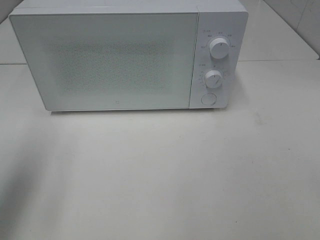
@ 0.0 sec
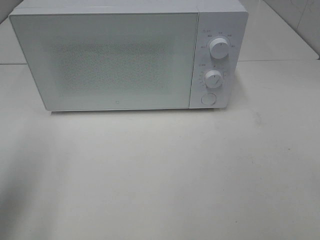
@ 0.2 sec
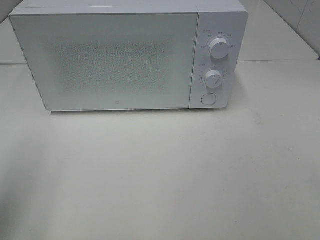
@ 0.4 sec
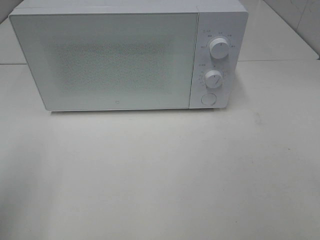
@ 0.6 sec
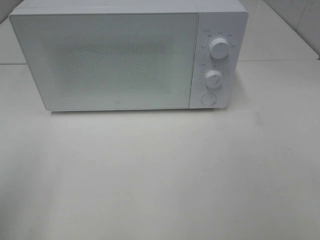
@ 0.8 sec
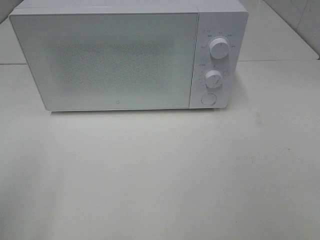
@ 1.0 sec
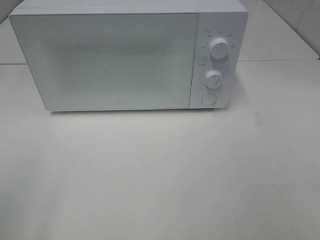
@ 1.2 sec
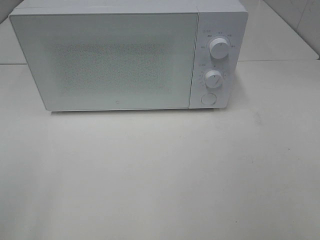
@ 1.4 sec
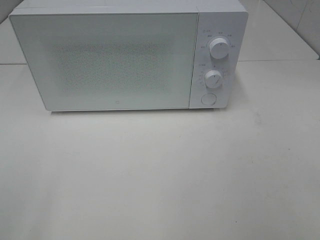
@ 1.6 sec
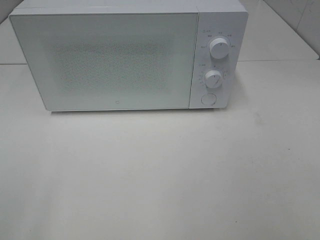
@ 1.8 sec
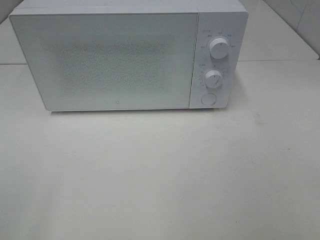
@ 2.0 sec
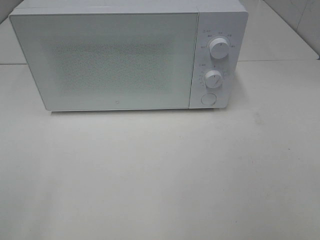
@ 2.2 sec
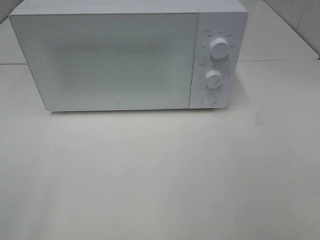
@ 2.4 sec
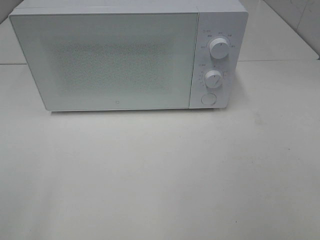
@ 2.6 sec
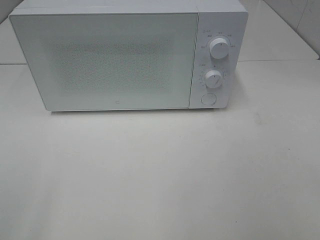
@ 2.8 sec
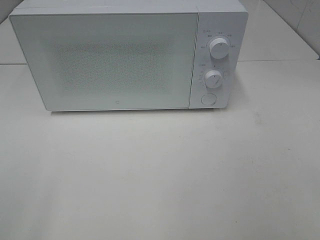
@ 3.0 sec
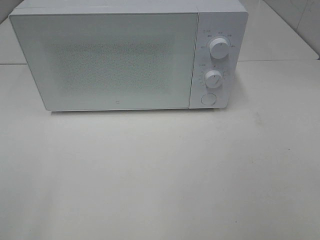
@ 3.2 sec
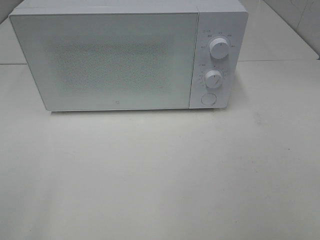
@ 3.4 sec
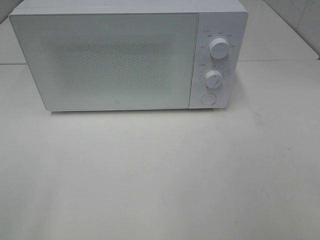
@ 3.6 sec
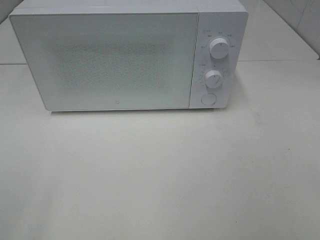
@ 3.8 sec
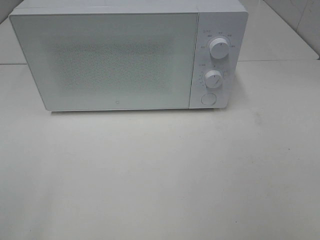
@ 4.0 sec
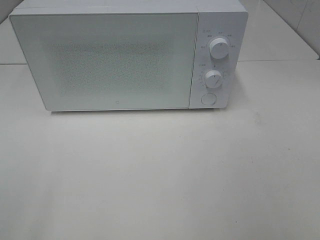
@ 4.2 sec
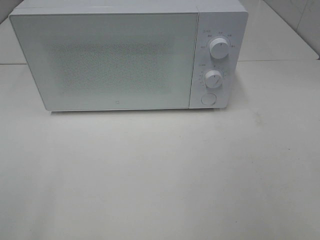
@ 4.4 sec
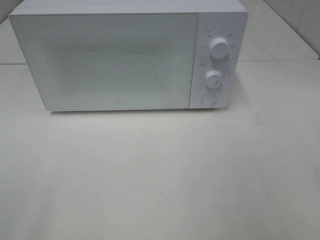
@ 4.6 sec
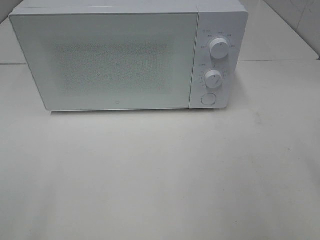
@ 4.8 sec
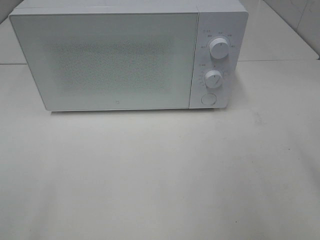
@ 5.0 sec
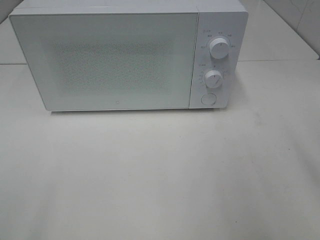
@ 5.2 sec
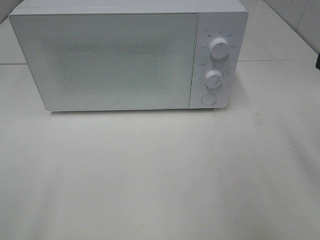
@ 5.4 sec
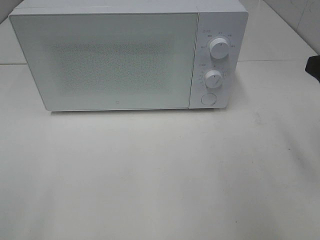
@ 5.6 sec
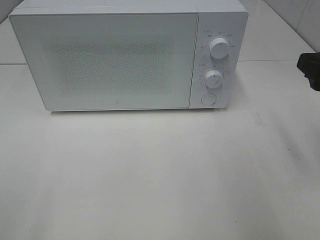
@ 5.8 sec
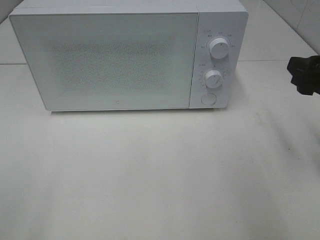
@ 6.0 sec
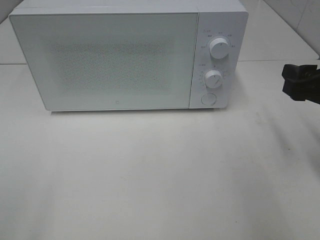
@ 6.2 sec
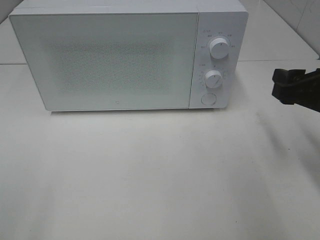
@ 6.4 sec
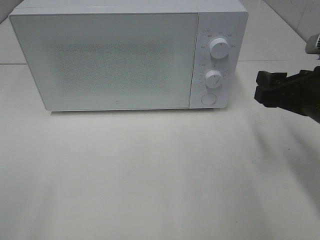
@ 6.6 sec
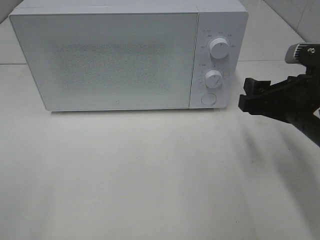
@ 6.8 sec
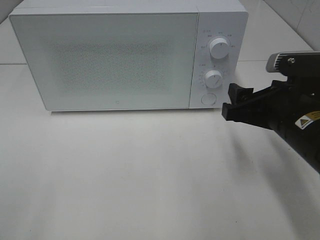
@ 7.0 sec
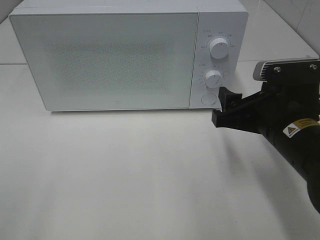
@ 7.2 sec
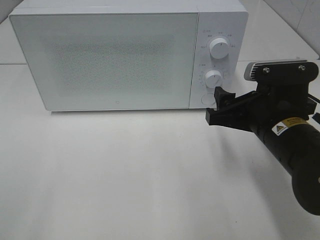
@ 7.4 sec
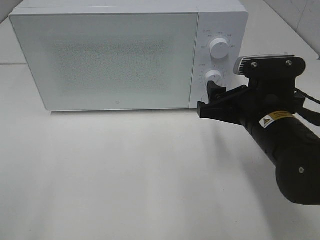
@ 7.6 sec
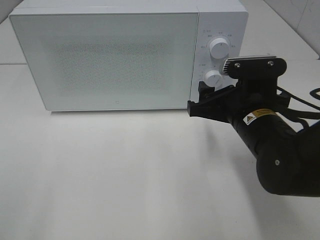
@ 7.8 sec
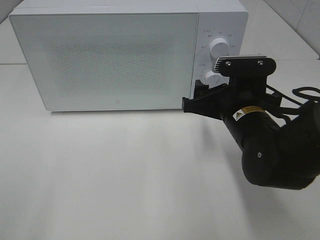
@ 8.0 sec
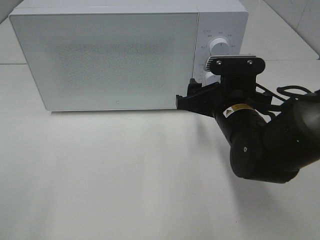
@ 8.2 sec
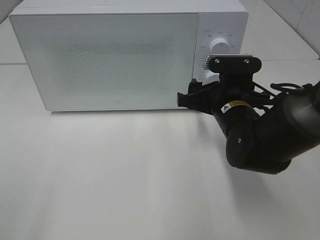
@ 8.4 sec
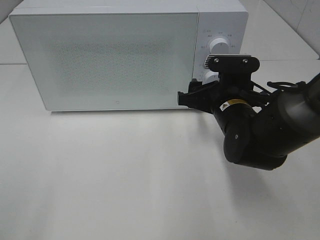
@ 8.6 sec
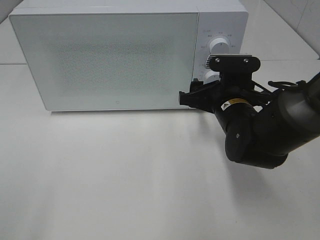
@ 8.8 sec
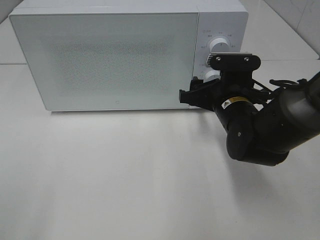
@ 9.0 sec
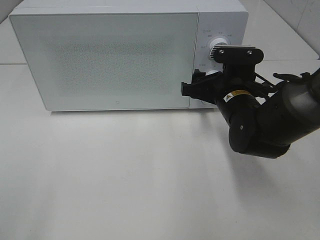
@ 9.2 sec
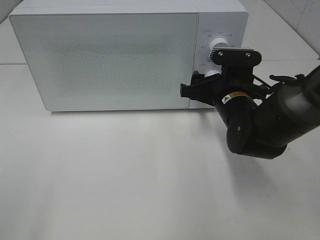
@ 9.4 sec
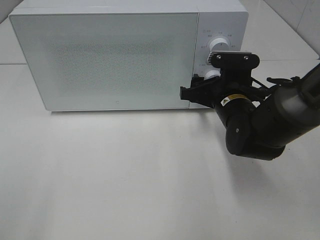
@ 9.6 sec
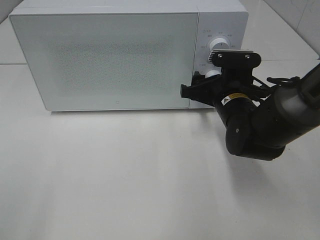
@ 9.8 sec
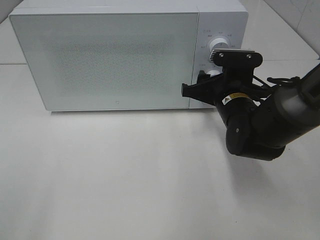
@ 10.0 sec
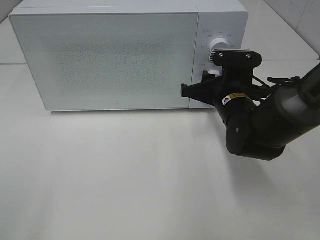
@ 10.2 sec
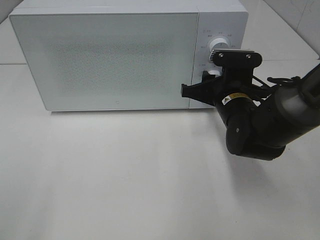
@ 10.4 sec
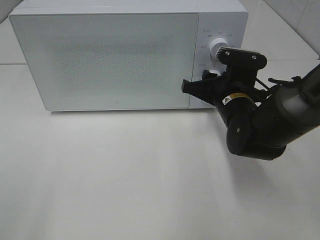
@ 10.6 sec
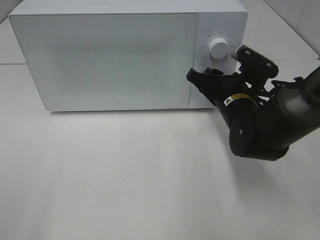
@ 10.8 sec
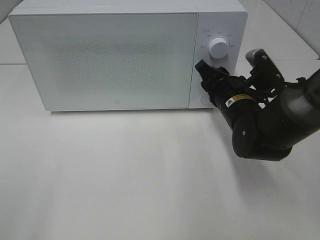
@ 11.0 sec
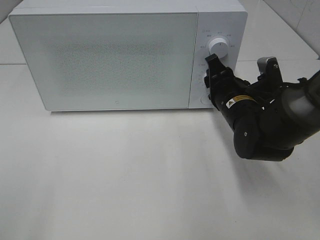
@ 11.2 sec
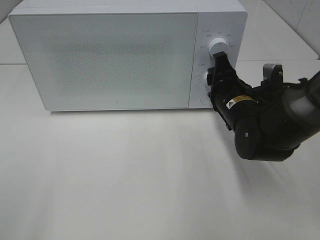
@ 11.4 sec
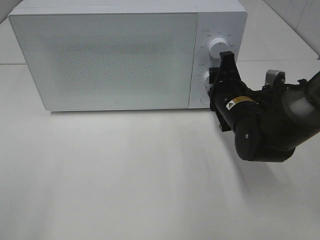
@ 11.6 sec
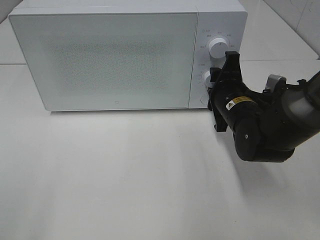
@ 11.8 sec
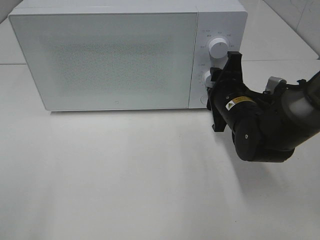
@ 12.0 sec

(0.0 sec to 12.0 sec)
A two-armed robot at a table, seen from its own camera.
Task of the whole recording: Heat the burger.
0.0 sec - 1.6 sec: The left gripper shifts about 20 cm backward.
1.6 sec - 3.0 sec: The two grippers keep their place.
4.4 sec - 6.0 sec: The right gripper shifts about 20 cm forward and downward.
6.0 sec - 7.6 sec: The right gripper goes roughly 15 cm to the left and downward.
7.6 sec - 9.0 sec: The right gripper heads forward, covering some 5 cm.
9.0 sec - 10.4 sec: The right gripper closes.

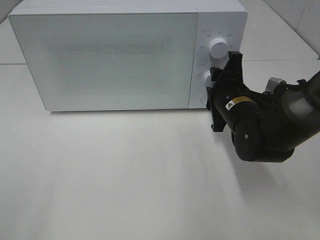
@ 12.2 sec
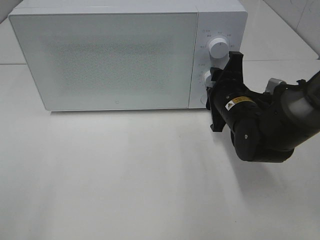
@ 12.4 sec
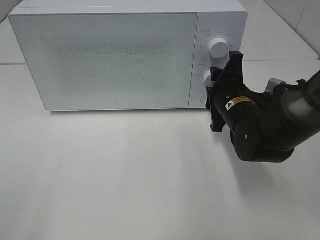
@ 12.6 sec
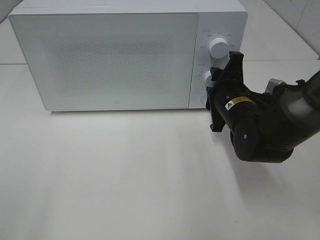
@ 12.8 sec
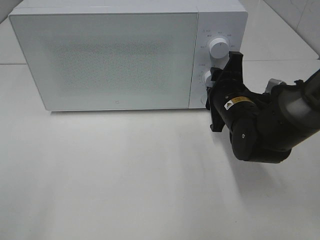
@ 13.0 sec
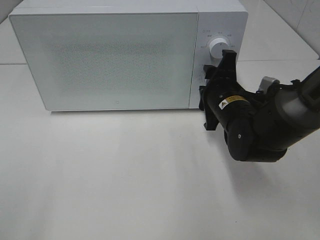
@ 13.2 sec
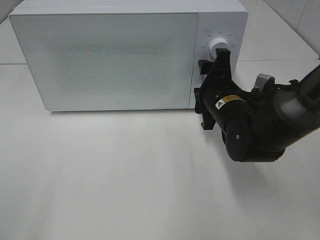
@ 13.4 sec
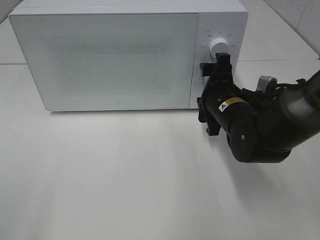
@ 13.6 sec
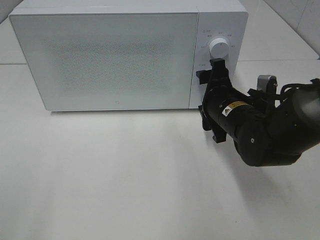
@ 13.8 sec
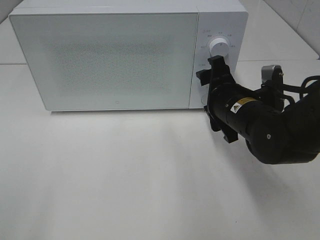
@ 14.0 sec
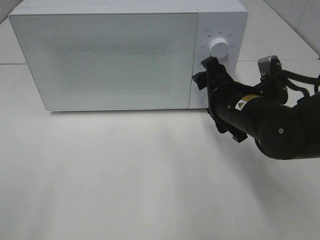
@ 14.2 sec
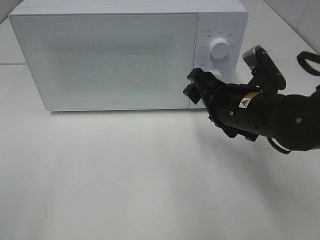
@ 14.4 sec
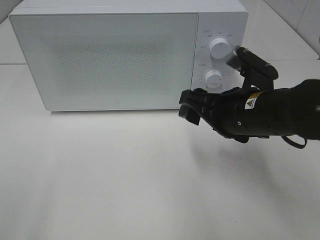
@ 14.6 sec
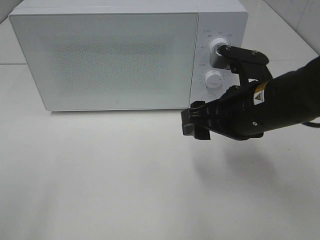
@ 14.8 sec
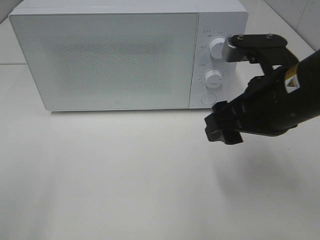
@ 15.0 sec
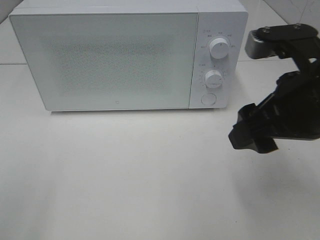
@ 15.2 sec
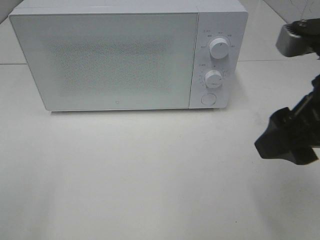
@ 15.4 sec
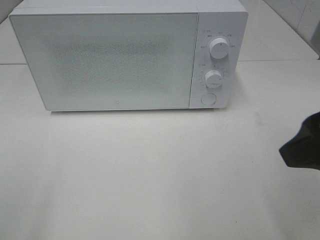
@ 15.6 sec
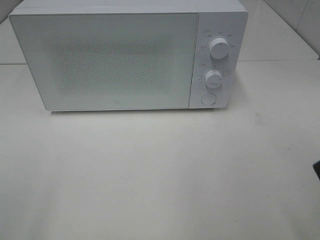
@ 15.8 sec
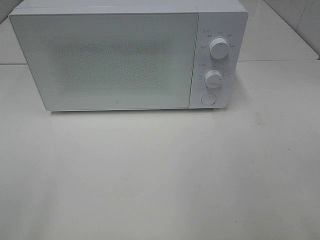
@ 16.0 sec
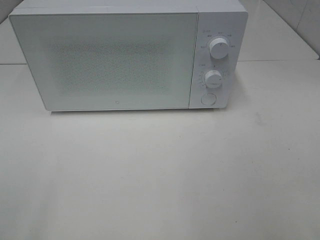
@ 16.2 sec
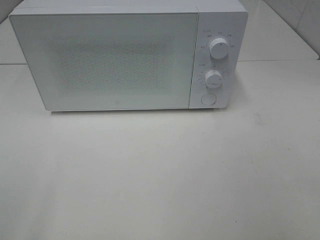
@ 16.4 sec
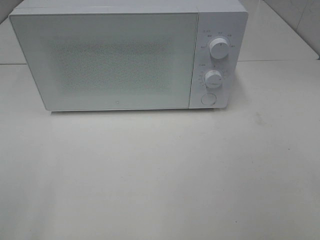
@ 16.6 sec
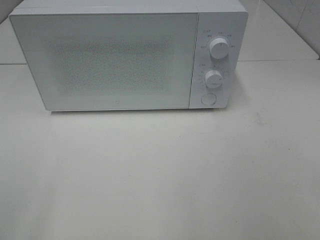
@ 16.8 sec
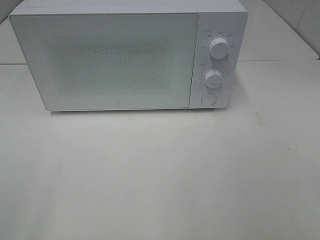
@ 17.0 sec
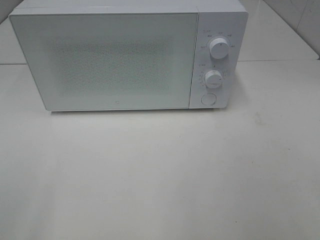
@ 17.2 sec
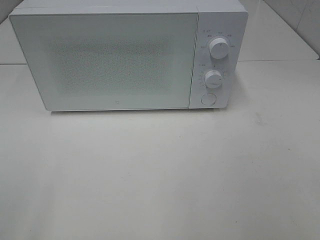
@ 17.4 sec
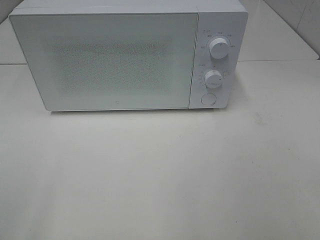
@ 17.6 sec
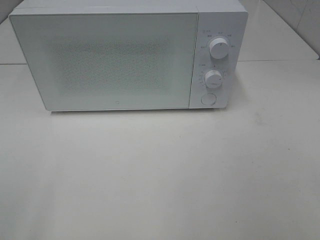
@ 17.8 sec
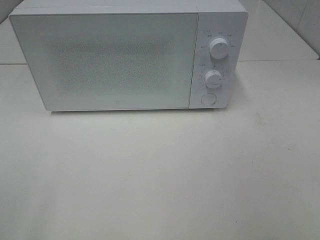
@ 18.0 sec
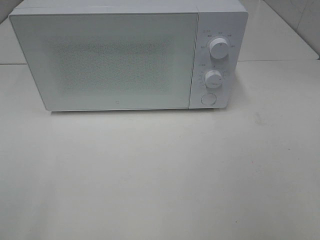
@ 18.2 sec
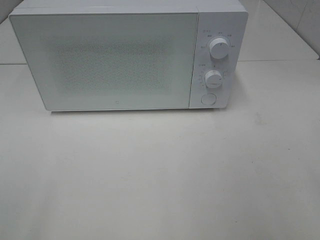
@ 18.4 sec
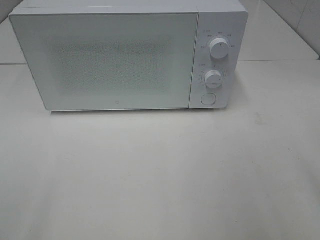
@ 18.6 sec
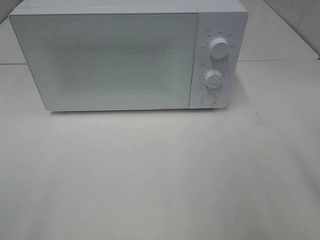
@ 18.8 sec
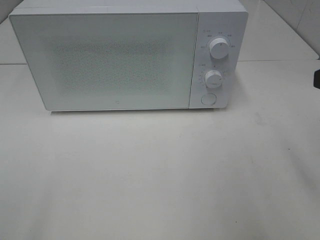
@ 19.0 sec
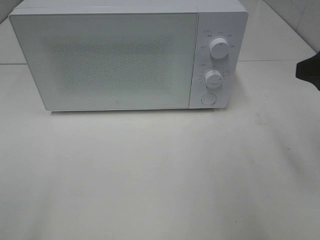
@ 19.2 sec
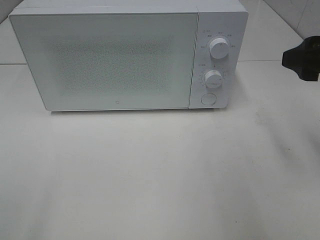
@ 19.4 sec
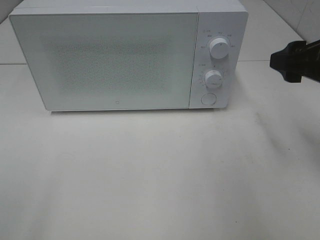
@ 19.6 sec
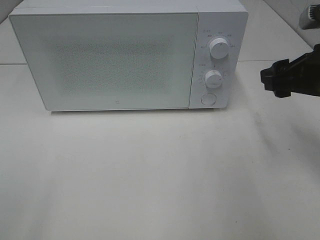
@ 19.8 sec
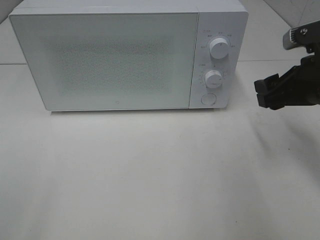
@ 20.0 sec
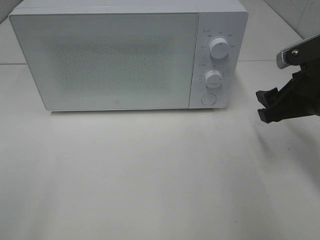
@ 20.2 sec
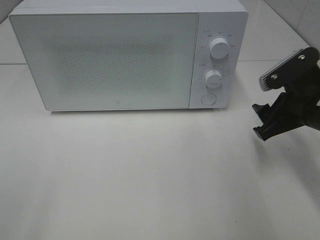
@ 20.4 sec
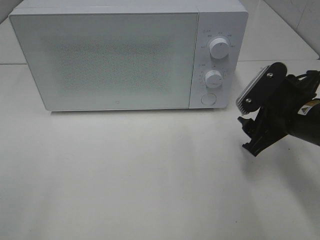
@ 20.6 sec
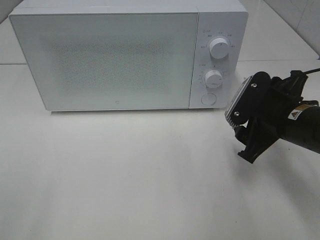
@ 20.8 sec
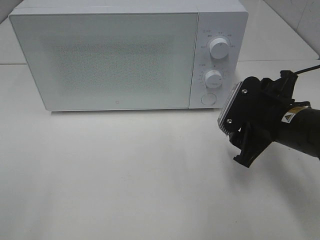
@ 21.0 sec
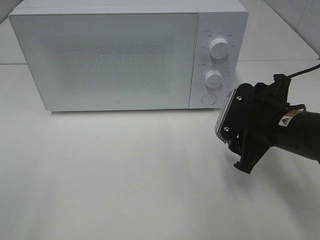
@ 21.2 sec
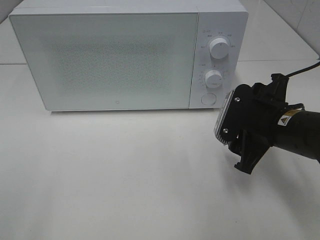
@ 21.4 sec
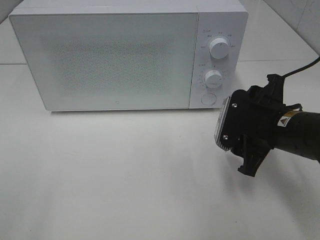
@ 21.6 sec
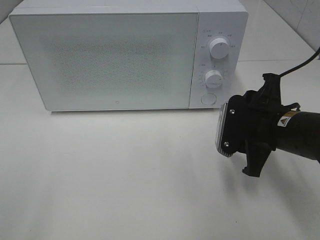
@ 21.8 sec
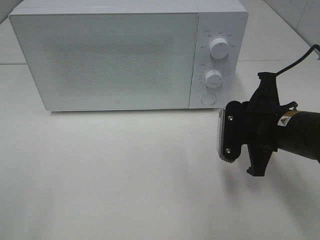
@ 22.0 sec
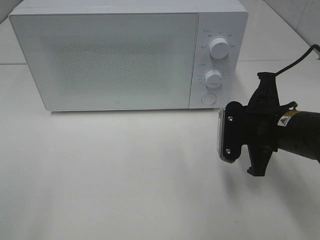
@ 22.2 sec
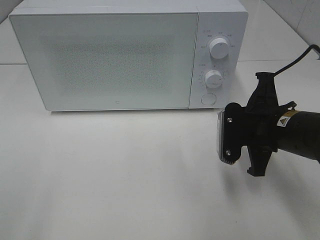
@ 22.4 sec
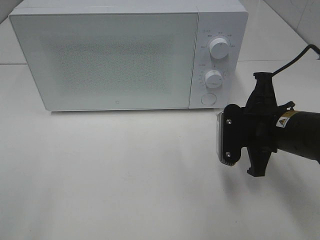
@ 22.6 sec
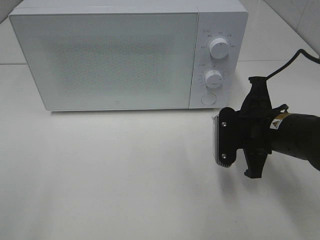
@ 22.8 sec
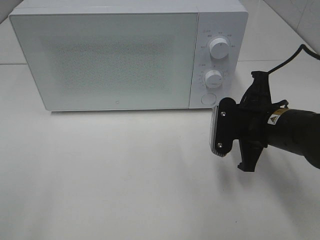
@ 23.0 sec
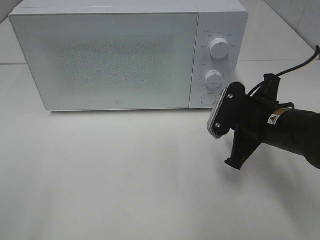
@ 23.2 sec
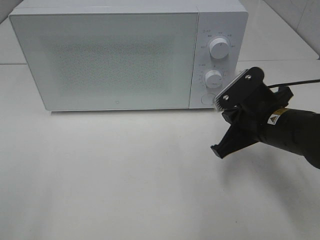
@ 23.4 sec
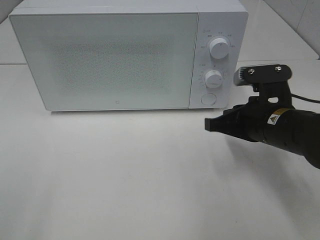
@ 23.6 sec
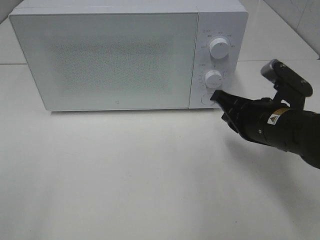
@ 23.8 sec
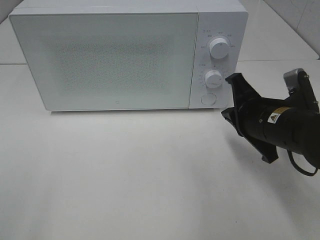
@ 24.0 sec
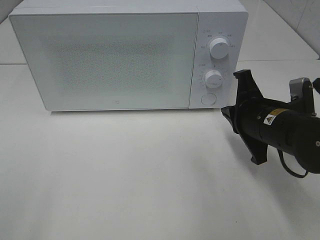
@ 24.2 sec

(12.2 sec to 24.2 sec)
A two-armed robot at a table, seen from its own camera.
Task of the whole recording: Heat the burger.
12.2 sec - 13.8 sec: The right gripper opens.
13.8 sec - 15.2 sec: The right gripper shifts approximately 20 cm upward and backward.
15.2 sec - 16.6 sec: The right gripper goes approximately 20 cm backward and to the right.
18.2 sec - 19.8 sec: The right gripper shifts approximately 20 cm forward.
19.8 sec - 21.2 sec: The right gripper goes some 10 cm downward and to the left.
21.2 sec - 22.6 sec: The right gripper closes its fingers.
